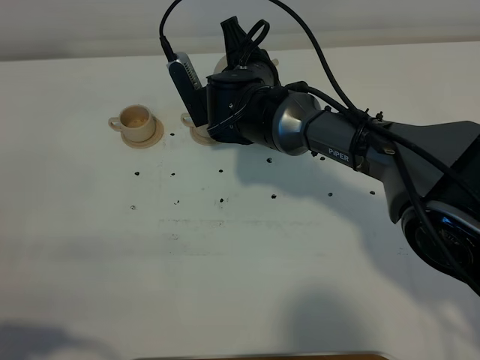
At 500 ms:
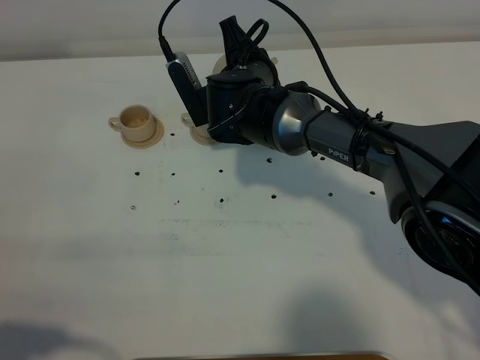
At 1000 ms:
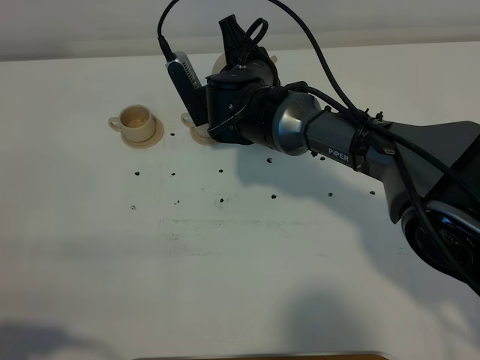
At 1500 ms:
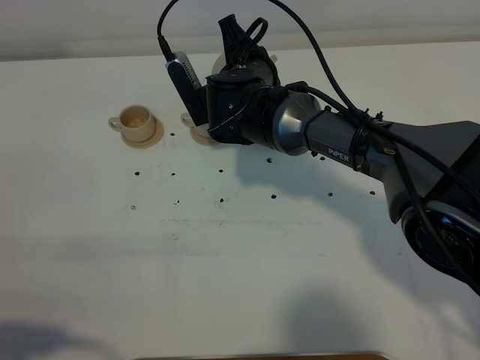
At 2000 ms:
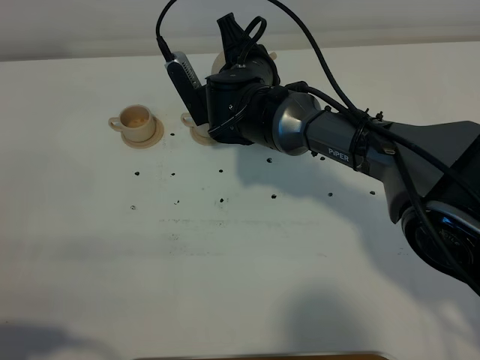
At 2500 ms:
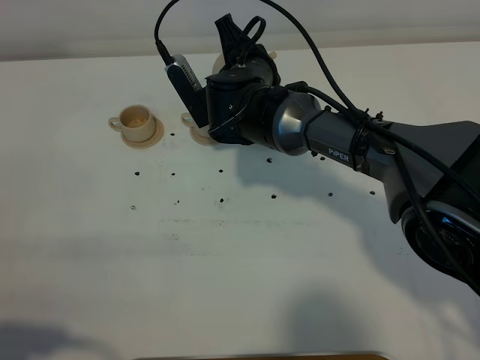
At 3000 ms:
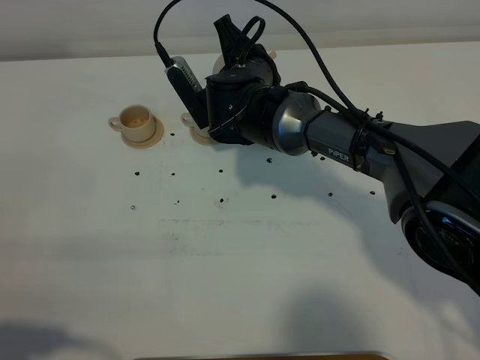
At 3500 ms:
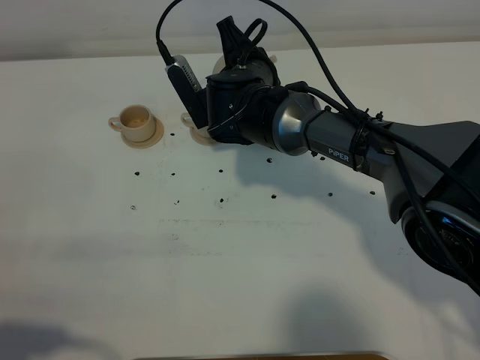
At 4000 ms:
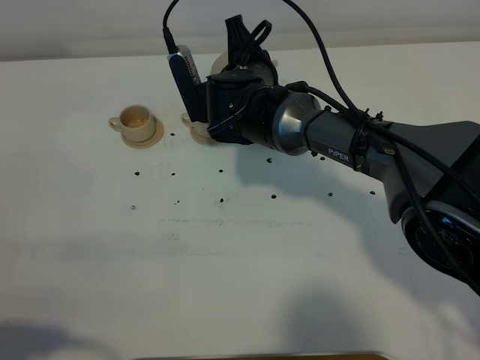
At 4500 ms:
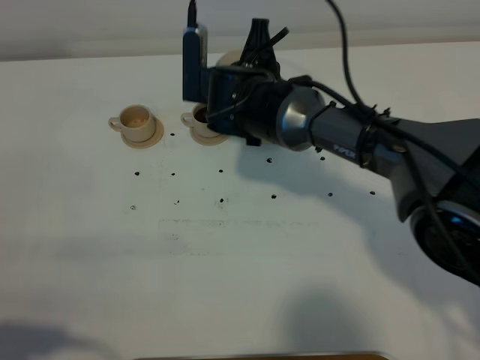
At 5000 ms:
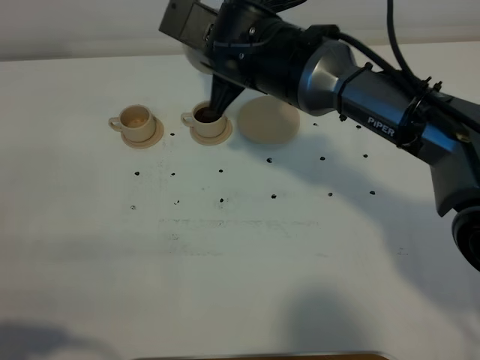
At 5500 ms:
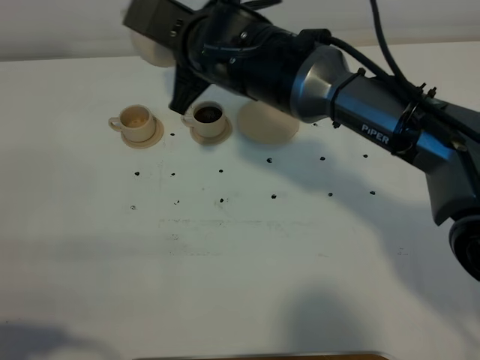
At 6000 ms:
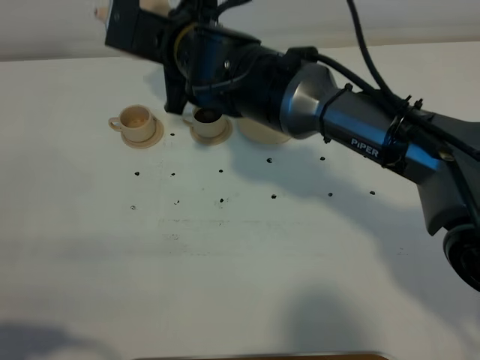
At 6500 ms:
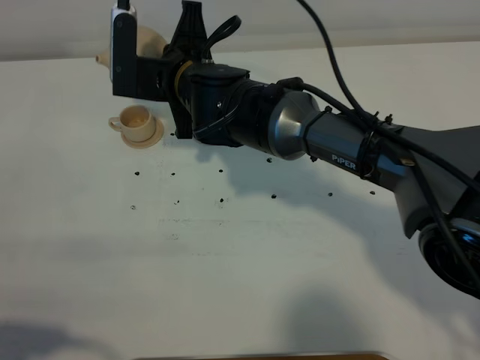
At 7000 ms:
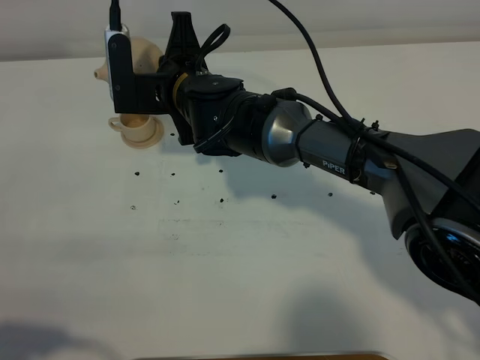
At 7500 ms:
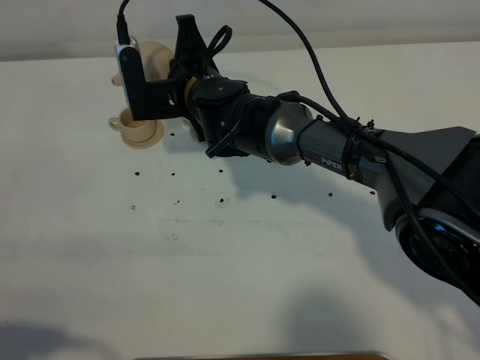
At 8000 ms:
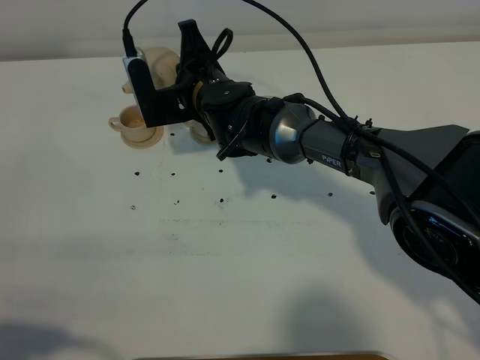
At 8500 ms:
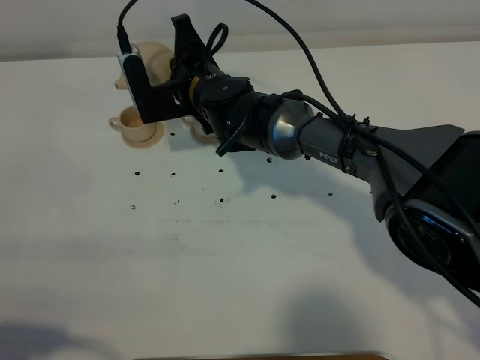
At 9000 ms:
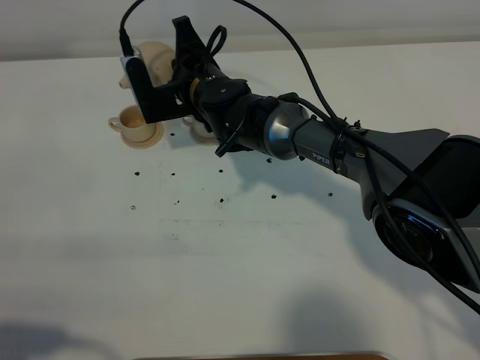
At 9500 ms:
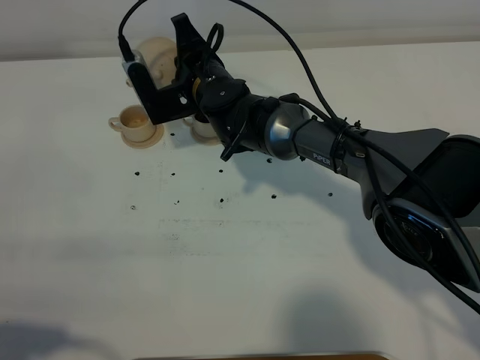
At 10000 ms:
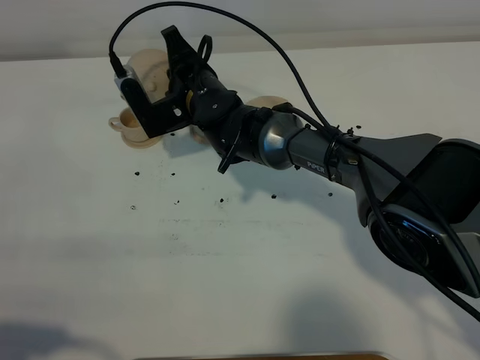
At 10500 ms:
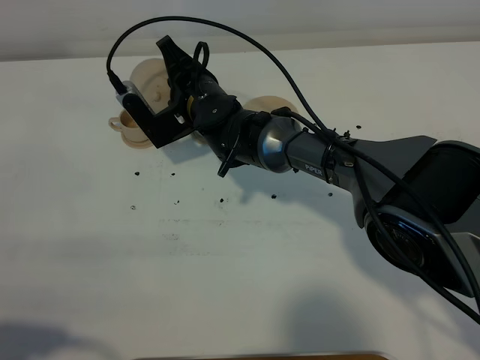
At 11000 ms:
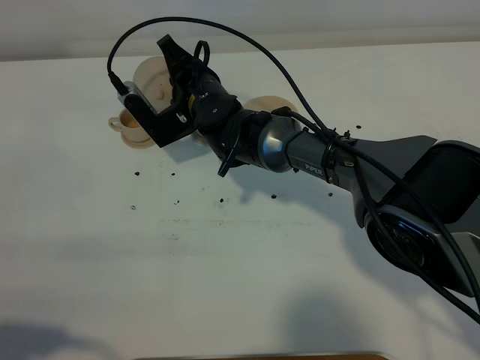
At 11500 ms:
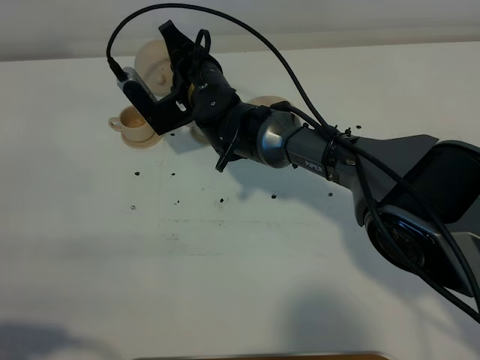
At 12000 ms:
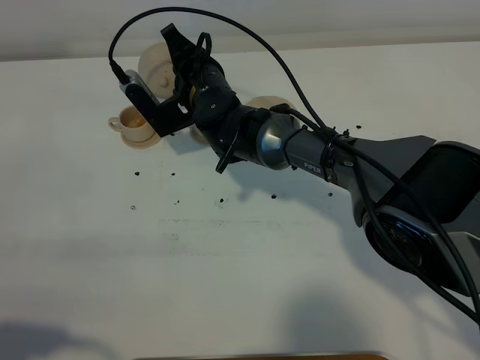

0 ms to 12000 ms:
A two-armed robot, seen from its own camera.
Task of the whole recording: grasp the brown teapot and pour the tea into the two brown teacups one by one, put the brown teapot back in its original place.
0 ms to 2000 ms: Neither gripper changes place.
2000 ms to 4000 ms: The grippers stay close to where they were, moving slightly.
4000 ms to 6000 ms: The right gripper heads upward, covering roughly 10 cm.
6000 ms to 8000 ms: The right gripper is displaced downward by roughly 10 cm.
8000 ms to 10000 ms: The grippers move only a little.
10000 ms to 12000 ms: There are only small adjustments of the grippers.

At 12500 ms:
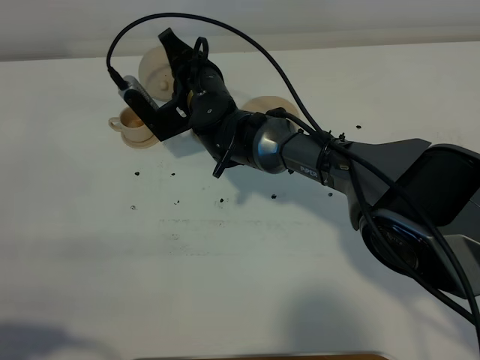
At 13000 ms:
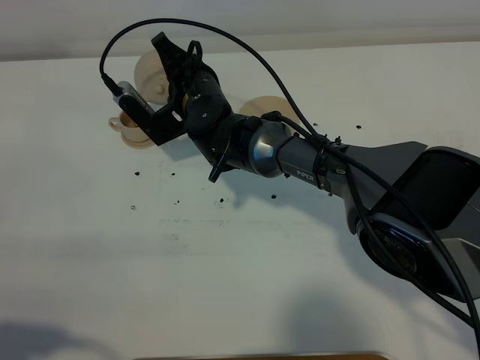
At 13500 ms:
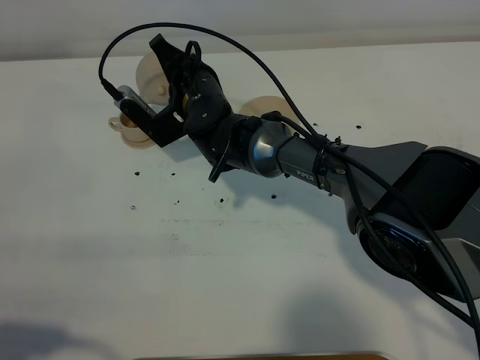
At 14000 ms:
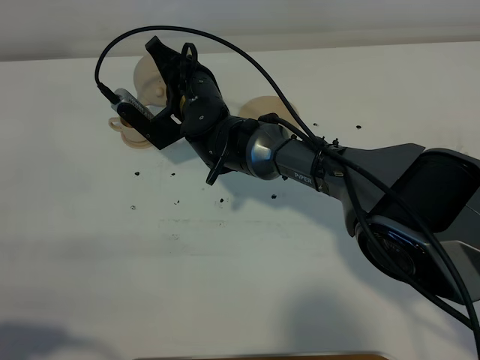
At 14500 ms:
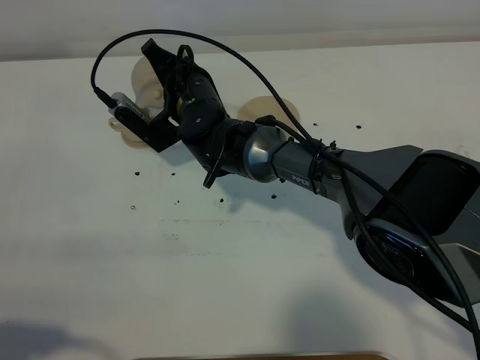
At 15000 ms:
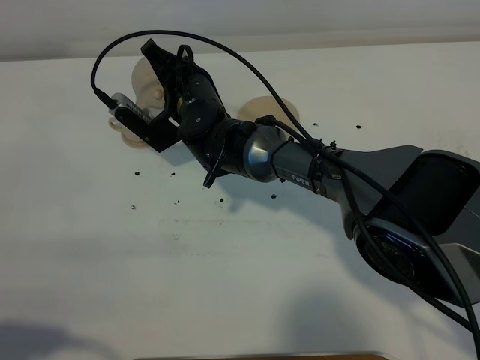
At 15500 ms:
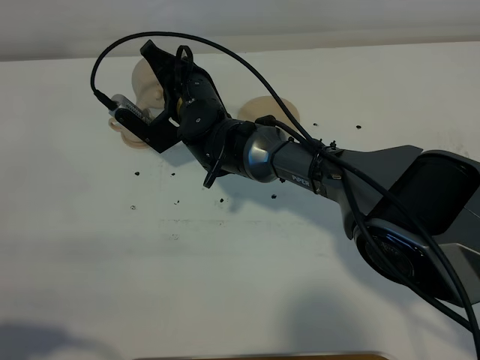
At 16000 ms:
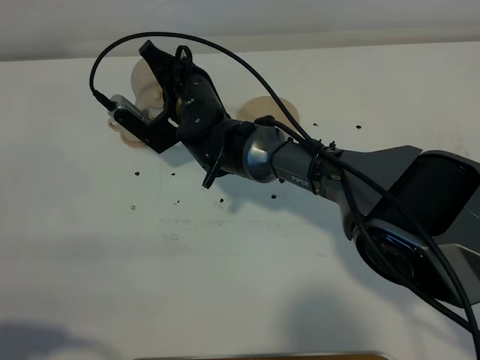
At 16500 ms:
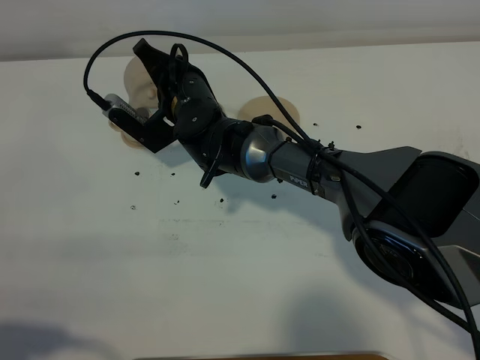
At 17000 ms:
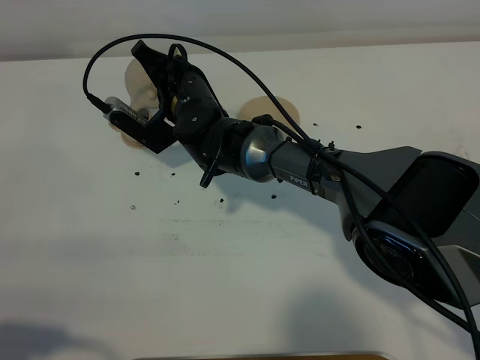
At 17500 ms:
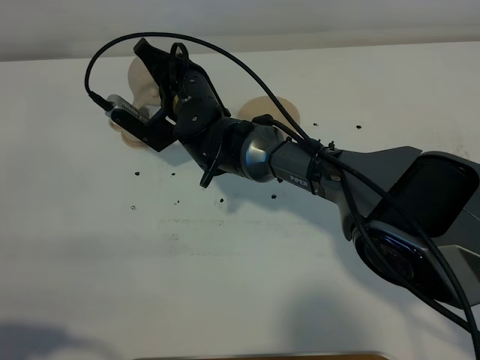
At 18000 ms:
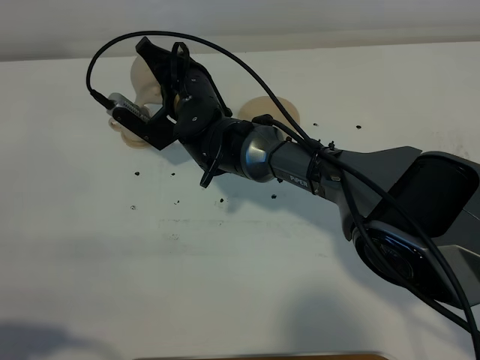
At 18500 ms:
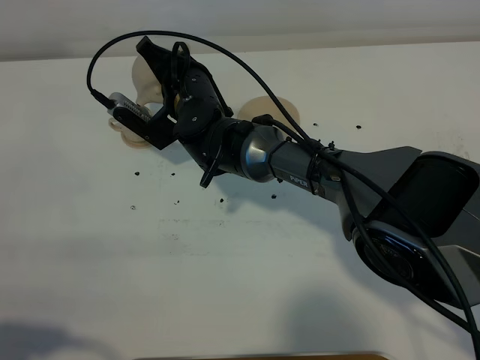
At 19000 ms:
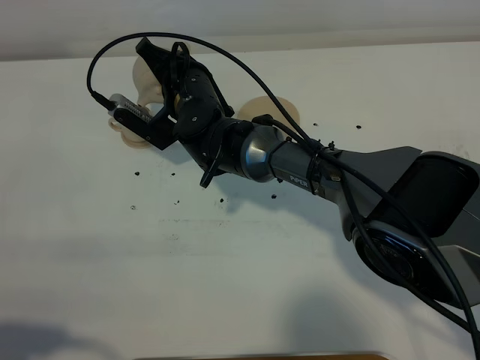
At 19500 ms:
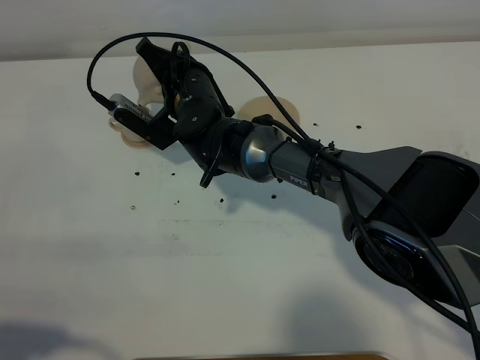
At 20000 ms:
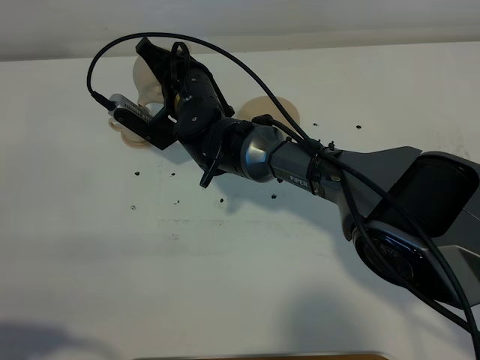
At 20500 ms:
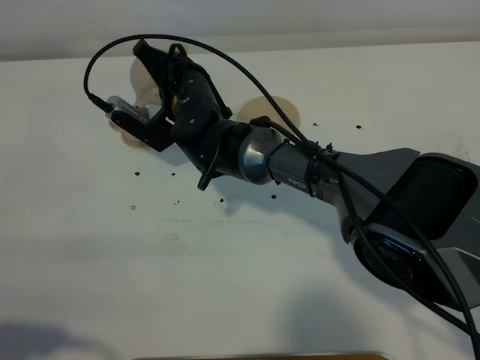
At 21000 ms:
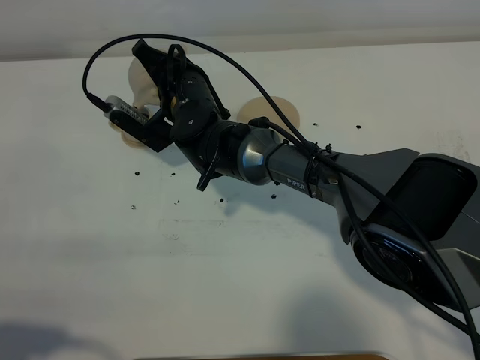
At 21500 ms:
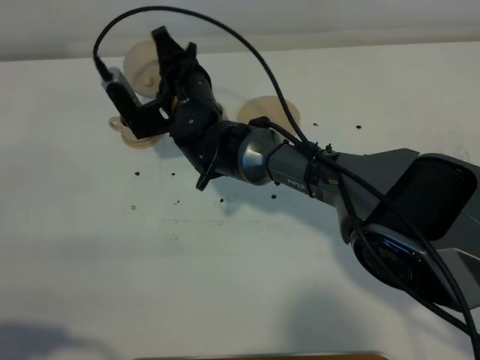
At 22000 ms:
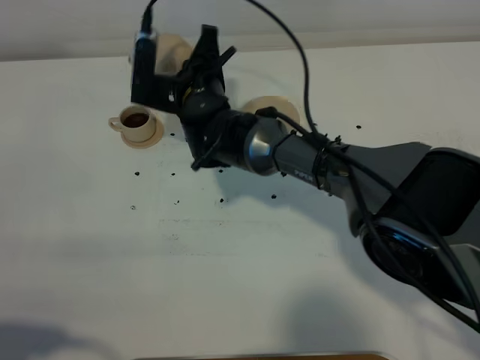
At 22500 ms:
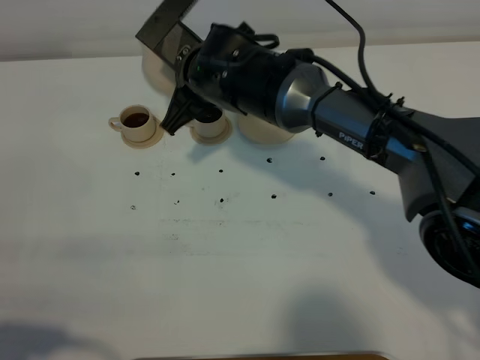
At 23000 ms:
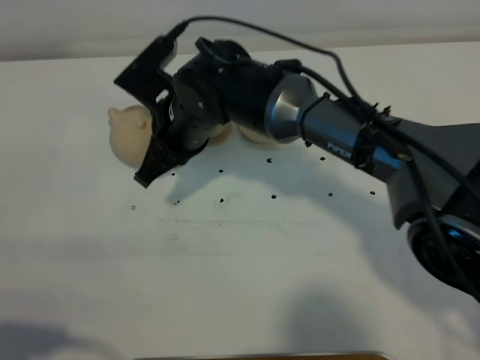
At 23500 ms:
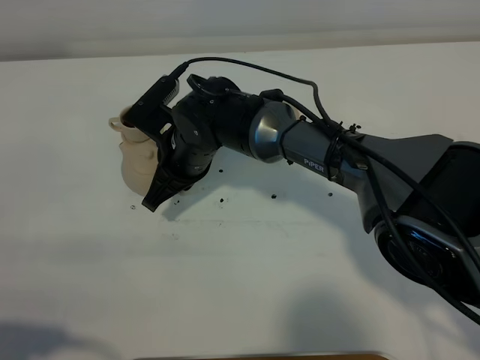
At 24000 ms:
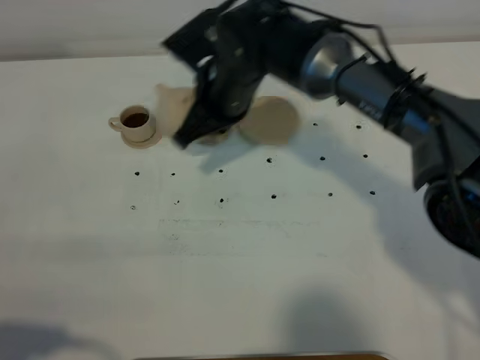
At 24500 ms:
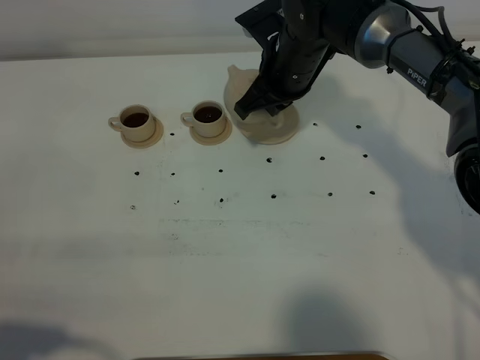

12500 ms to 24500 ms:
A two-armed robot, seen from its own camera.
Task of the whole recording: grasp the brown teapot and pour the tea into the two brown teacups one by one, put the brown teapot back in its original place.
Step, 12500 ms to 21500 ms: Pour tea into the teacup with the right gripper.
12500 ms to 14500 ms: The grippers make only small movements.
14500 ms to 18500 ms: Both grippers stay put.
18500 ms to 20500 ms: The two grippers keep their place.
20500 ms to 22500 ms: The right gripper travels upward by roughly 5 cm.
22500 ms to 24500 ms: The right gripper heads to the right and forward, covering about 10 cm.

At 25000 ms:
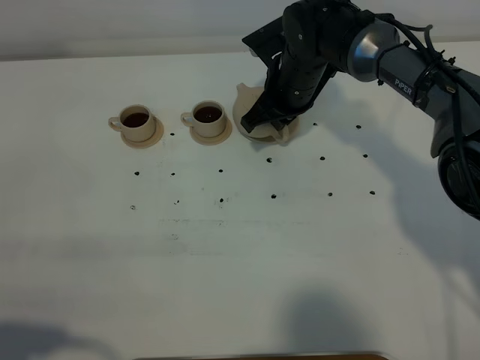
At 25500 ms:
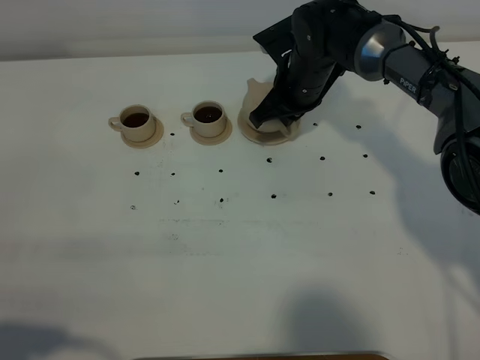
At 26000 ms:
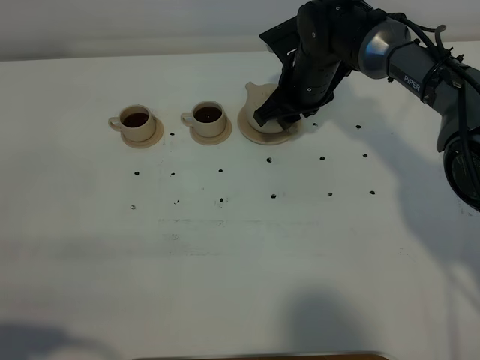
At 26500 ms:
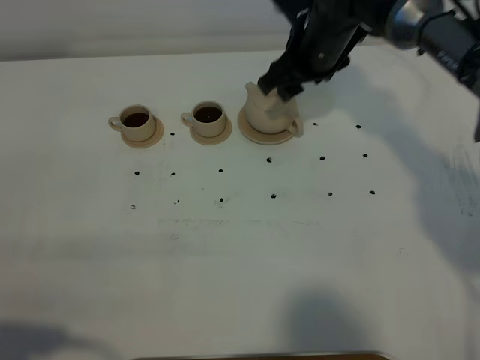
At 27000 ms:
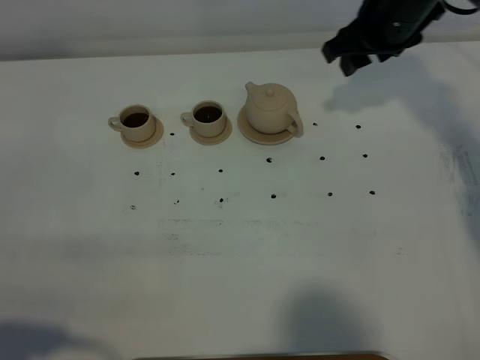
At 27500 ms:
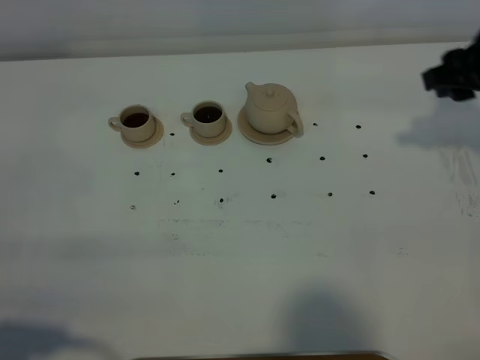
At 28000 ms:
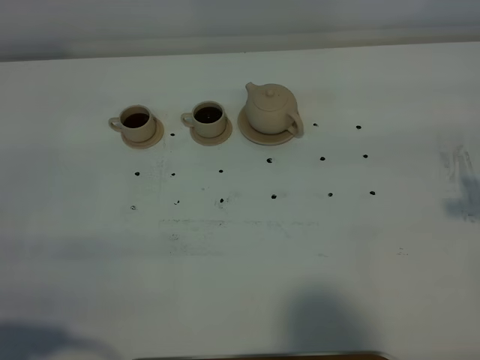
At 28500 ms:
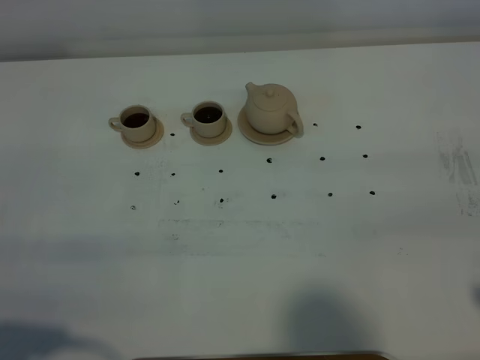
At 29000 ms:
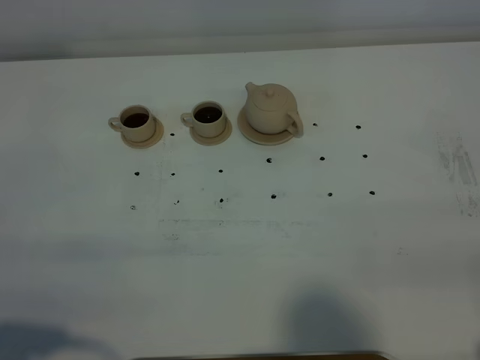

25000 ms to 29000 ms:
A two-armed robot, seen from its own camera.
Task of the whole recording: grasp the brown teapot and pour the tea into the two brown teacups one by one, put the brown teapot back in its original place.
25000 ms to 27000 ms: The right gripper heads to the right and upward, covering about 15 cm, and opens its fingers.
27000 ms to 29000 ms: The right gripper moves backward, roughly 40 cm.
